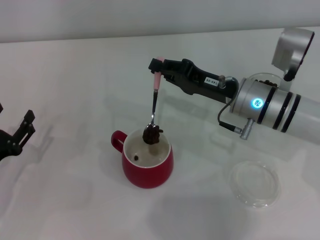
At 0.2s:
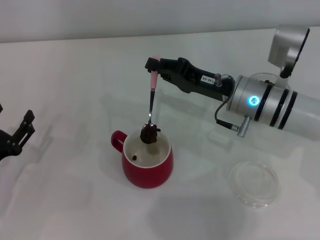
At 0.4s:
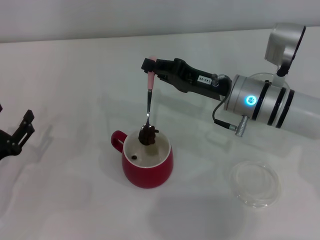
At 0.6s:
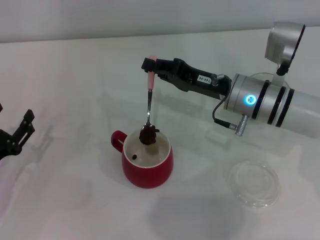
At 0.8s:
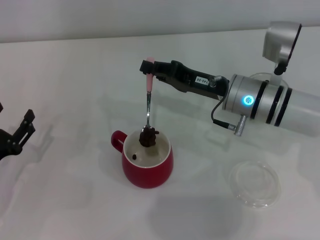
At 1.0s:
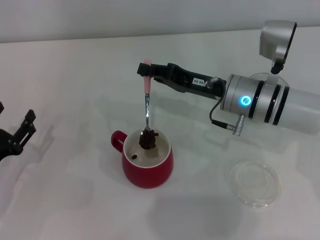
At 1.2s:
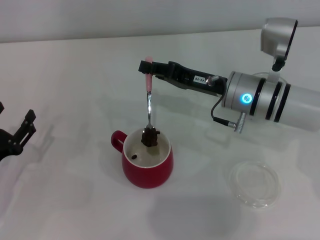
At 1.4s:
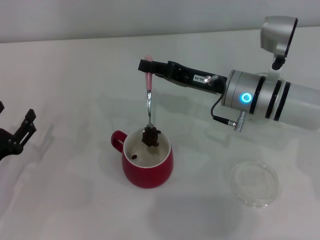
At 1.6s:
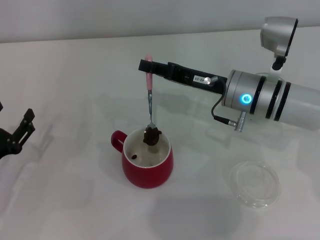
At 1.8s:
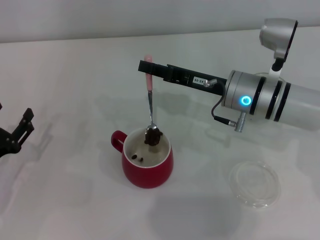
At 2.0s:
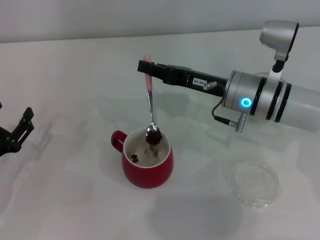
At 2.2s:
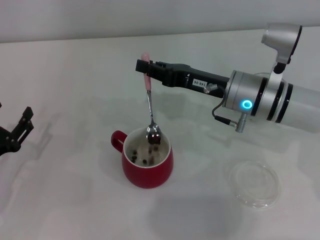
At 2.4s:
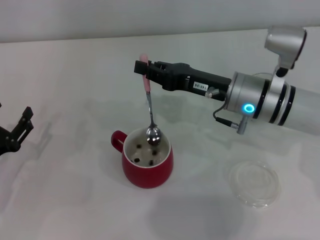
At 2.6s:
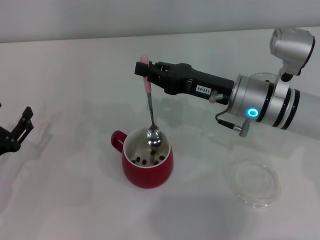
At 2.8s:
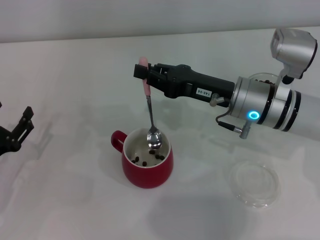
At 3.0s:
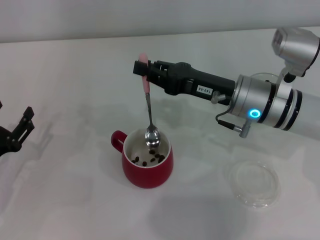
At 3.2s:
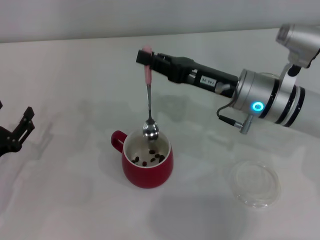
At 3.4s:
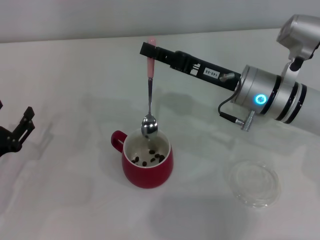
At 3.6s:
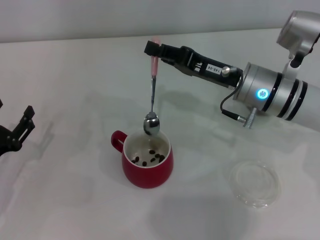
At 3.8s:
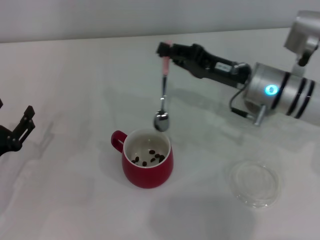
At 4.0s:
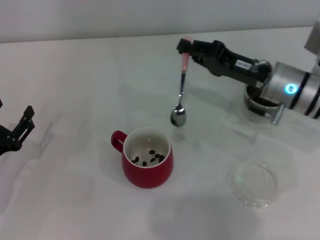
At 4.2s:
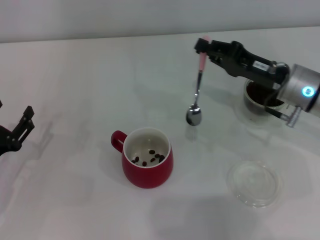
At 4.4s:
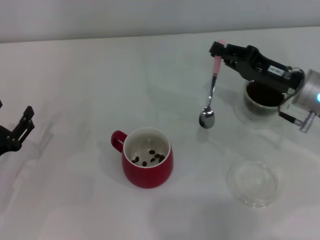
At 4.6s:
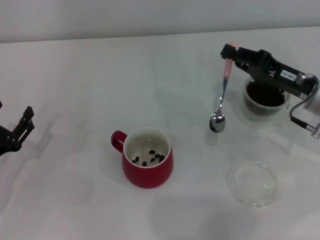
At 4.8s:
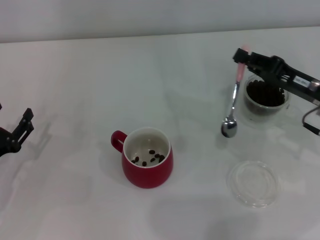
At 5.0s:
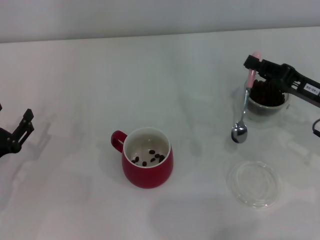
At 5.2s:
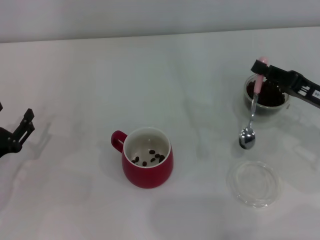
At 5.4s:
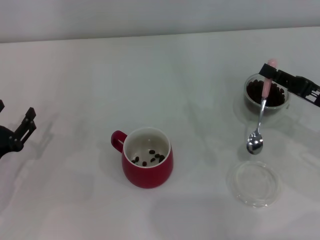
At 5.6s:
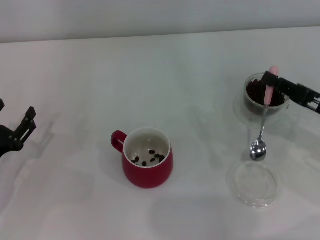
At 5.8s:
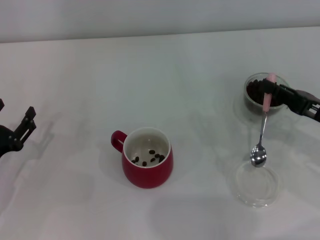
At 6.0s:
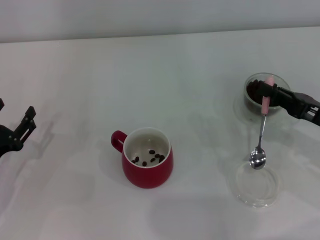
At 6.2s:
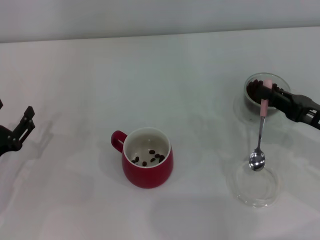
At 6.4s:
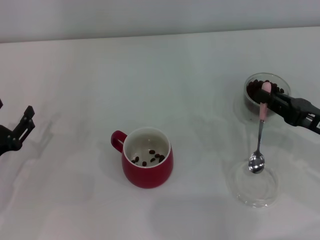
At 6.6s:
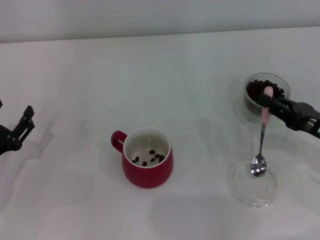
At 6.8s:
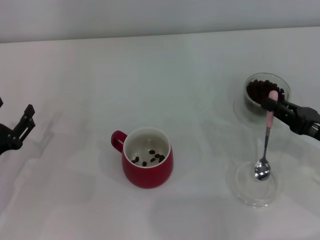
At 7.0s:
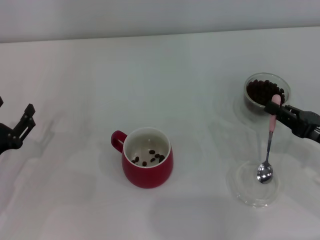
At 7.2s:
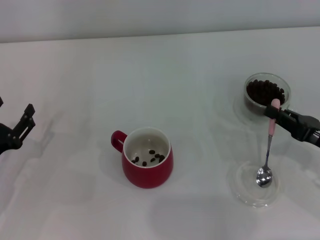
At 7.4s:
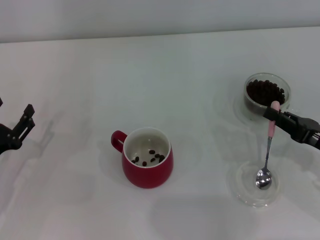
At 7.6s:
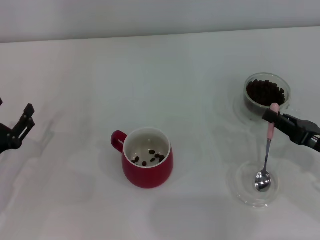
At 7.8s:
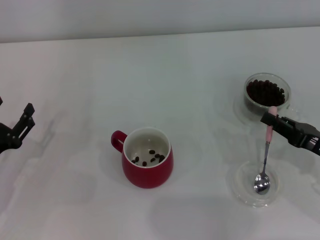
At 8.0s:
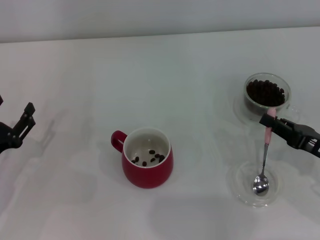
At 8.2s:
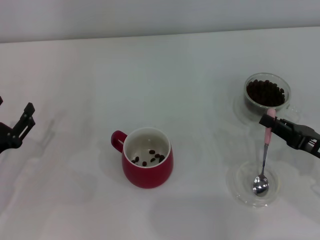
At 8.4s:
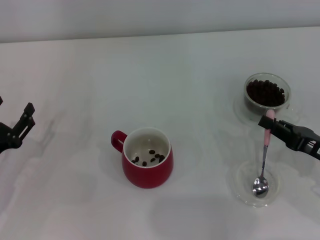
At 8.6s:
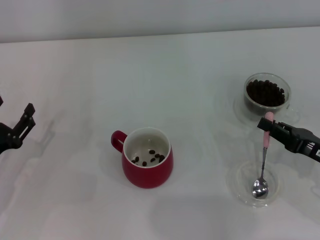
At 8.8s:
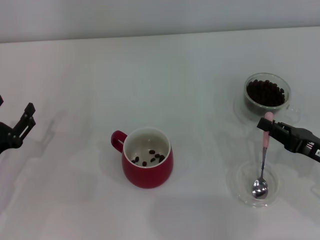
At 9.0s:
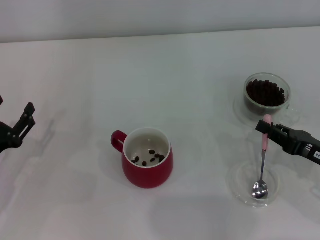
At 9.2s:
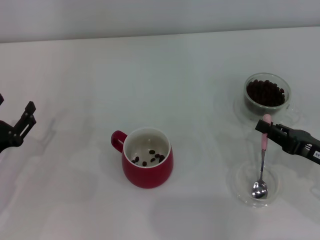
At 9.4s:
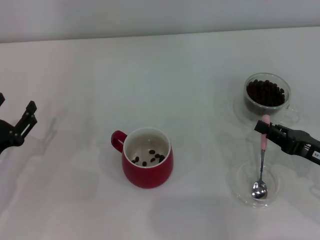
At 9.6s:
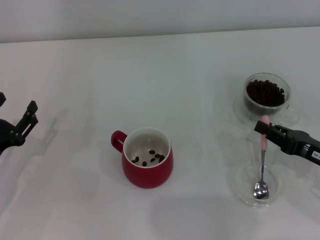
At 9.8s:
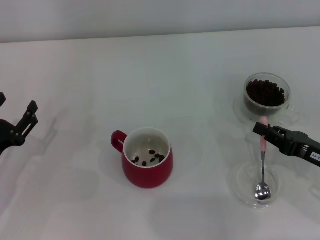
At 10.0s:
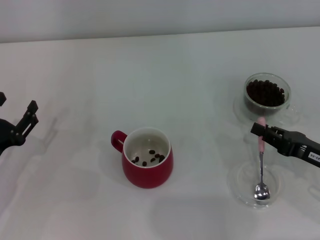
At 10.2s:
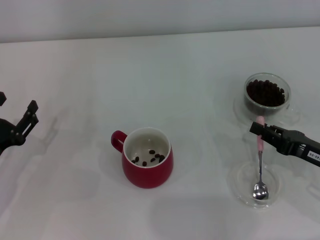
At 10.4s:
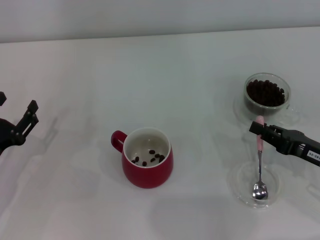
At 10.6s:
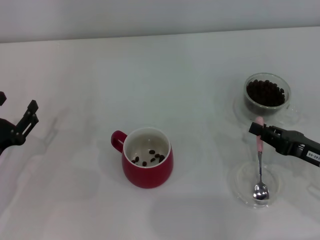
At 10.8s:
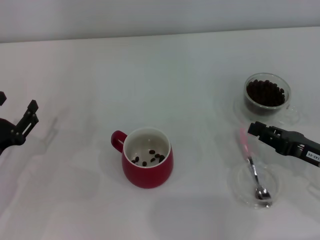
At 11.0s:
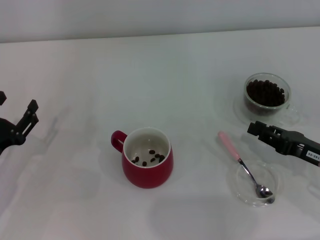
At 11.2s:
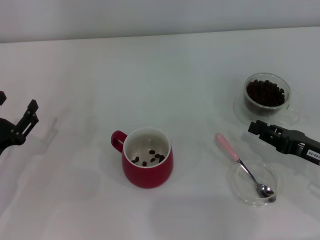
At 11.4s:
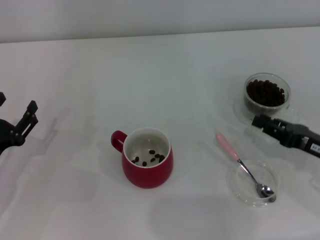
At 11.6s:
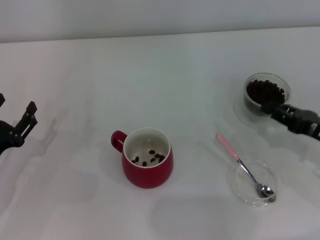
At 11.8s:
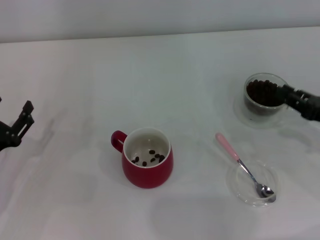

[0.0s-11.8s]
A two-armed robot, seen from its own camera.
Task of the whole recording: Use a pink spoon to take out the coffee beans from the glass and pour them into the red cup.
Step, 0.0s to 3.8s: Scoop a spoonful of beans into the cup with the right gripper.
Step, 4.0s to 11.2s: Place the spoon back in its original place with the right gripper.
0.0s to 1.4s: The grippers move only a little.
3.0s to 4.4s: The right gripper heads to the right, covering about 10 cm.
4.4s to 6.0s: The right gripper moves backward and to the right, approximately 10 cm.
6.0s to 7.4s: The grippers move only a little.
7.4s to 8.8s: Both grippers stay put.
8.8s to 10.4s: Both grippers stay about where they are.
10.4s to 11.8s: The right gripper ends up some 5 cm from where it was.

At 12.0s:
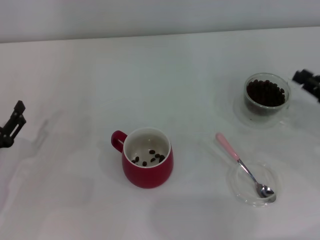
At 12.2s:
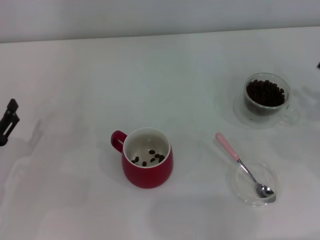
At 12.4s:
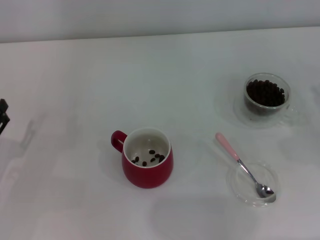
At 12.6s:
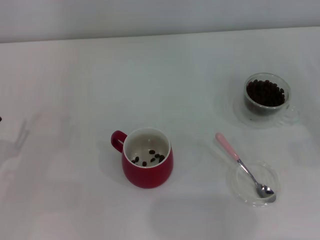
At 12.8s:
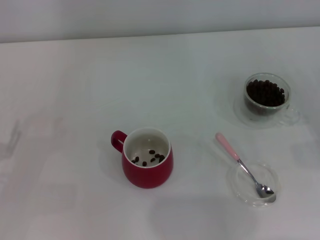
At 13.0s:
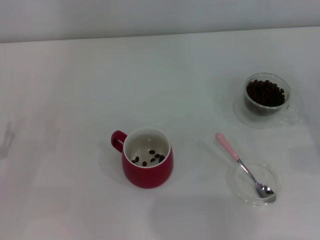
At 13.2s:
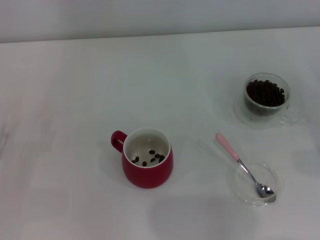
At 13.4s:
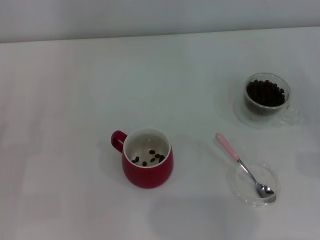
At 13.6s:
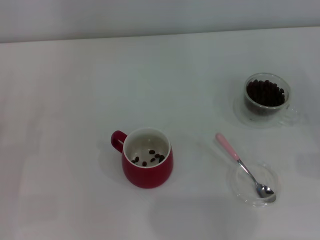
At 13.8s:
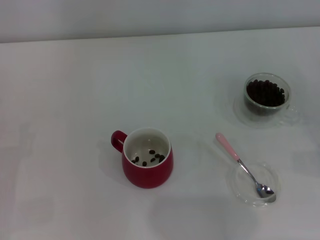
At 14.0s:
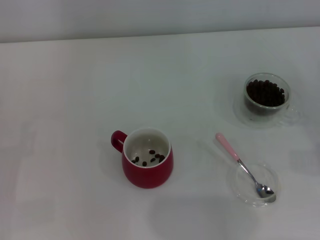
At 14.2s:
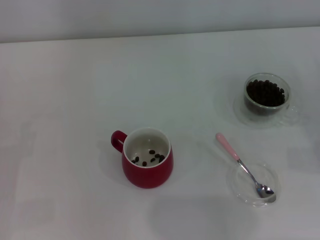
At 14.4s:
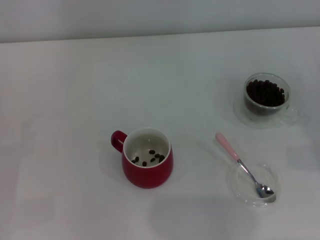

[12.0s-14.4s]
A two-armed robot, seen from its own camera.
Task of the whole recording: Use a pink spoon to take out the coffee beans from the glass and pour them into the red cup.
12.0s to 13.2s: The right gripper shifts by about 5 cm.

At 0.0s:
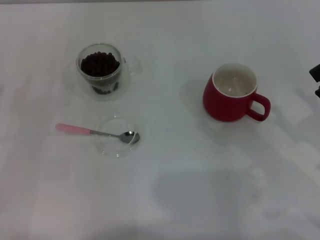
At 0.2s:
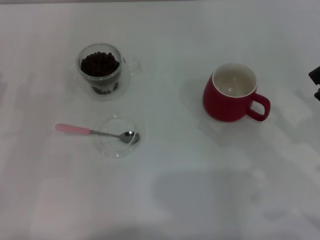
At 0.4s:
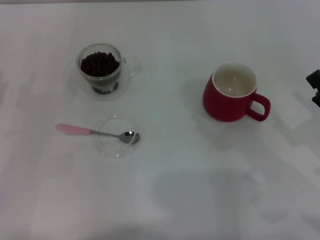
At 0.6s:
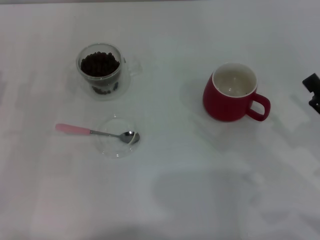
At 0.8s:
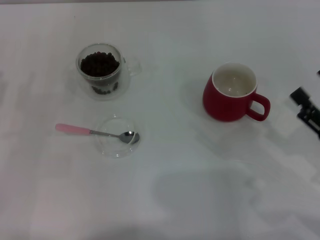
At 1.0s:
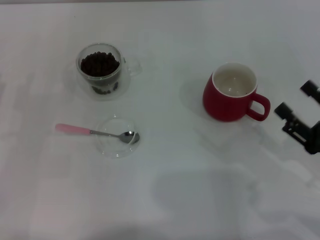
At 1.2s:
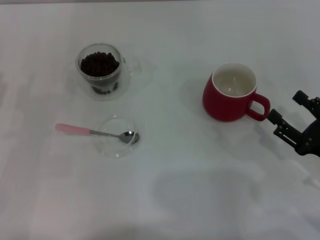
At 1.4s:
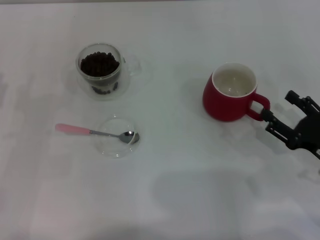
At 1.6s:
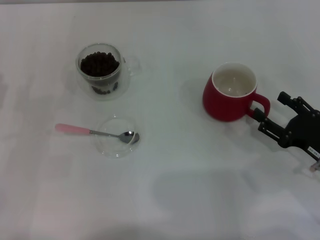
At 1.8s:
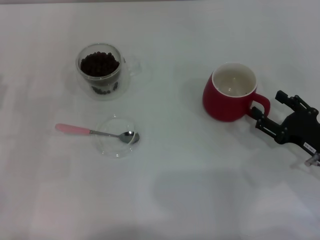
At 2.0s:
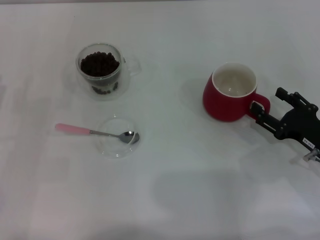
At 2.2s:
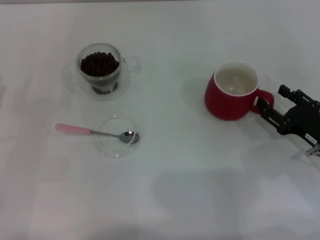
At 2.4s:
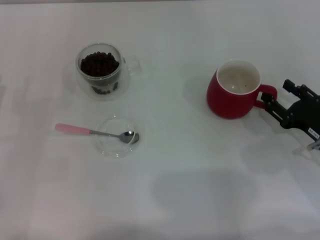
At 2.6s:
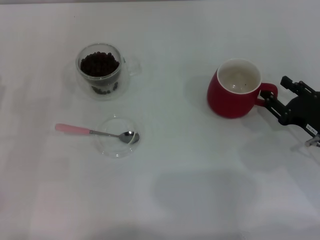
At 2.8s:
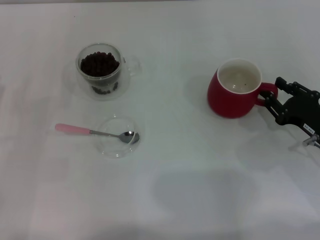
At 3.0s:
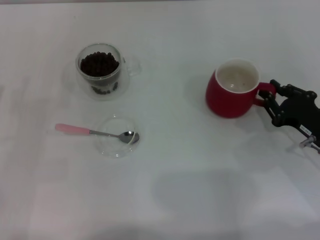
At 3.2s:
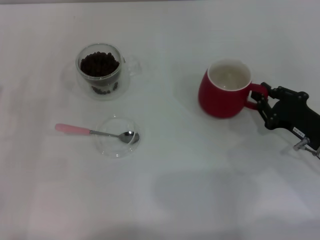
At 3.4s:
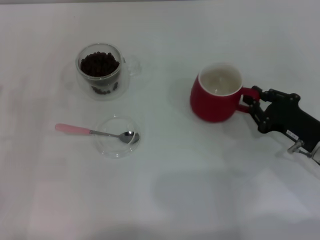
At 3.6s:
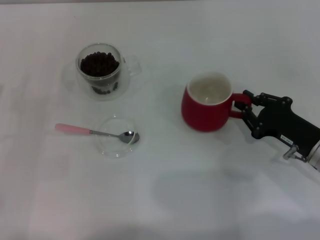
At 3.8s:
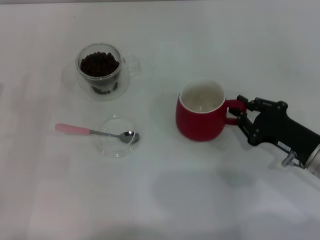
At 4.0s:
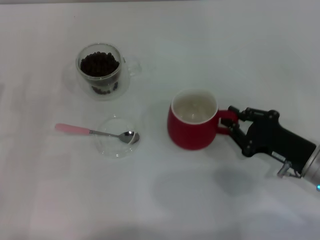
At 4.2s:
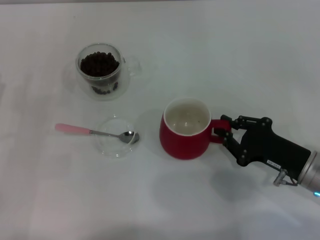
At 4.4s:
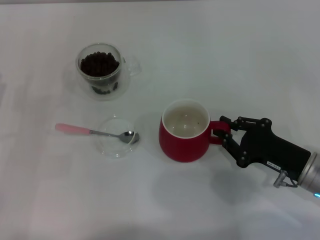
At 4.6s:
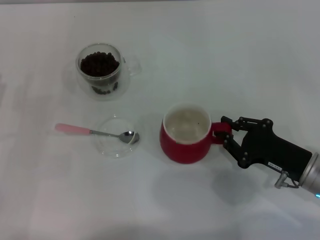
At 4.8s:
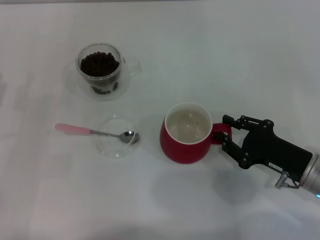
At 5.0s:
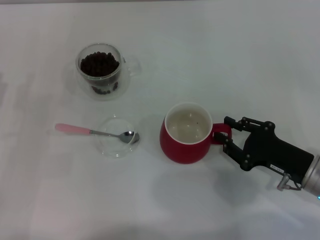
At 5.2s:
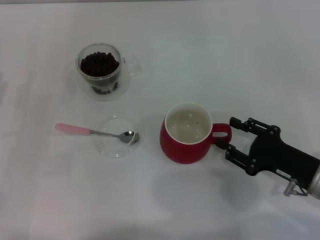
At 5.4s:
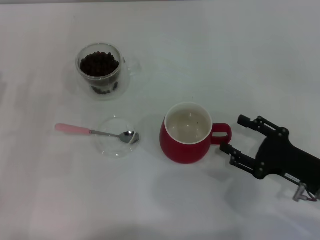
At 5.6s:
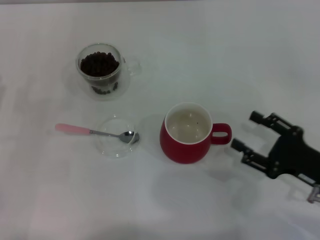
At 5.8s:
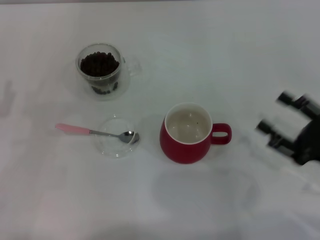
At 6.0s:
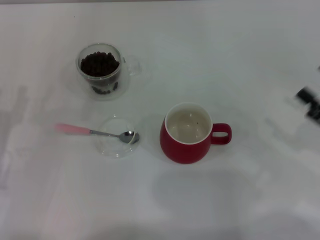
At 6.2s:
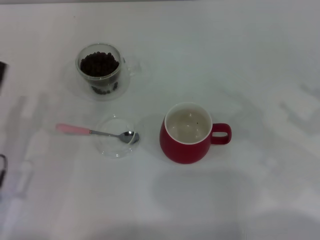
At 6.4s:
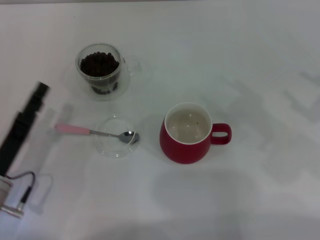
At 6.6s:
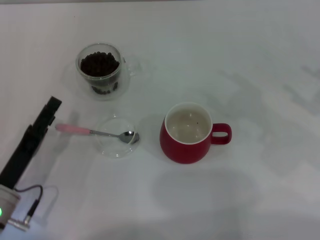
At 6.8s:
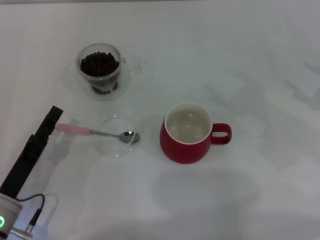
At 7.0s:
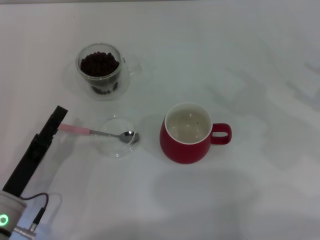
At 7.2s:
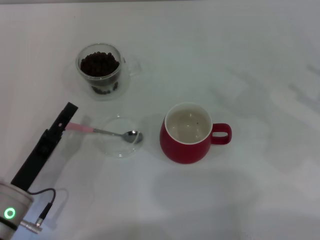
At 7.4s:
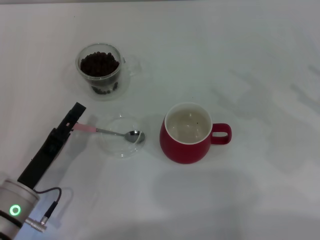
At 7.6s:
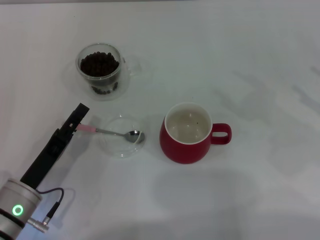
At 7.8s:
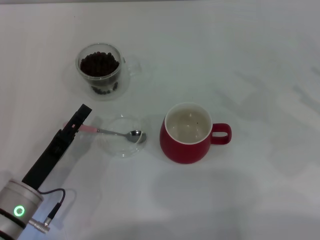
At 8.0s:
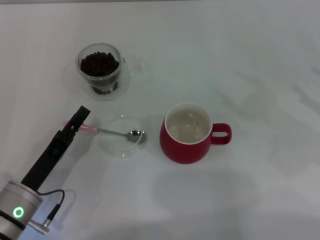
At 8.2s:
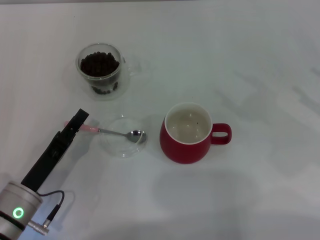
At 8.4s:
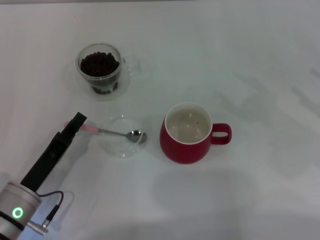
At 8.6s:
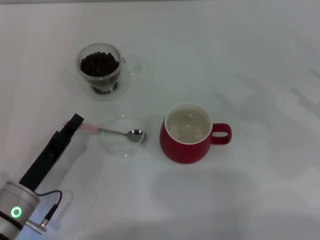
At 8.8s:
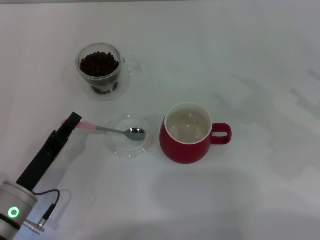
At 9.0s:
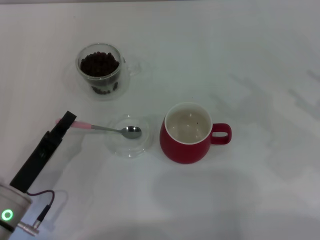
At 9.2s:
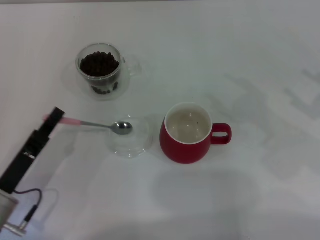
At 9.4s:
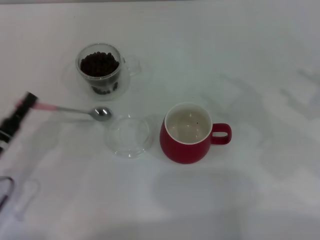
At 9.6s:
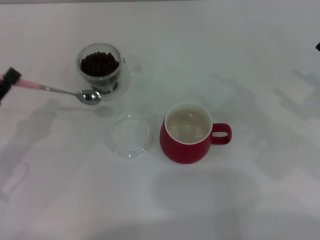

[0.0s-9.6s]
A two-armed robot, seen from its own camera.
Task of the whole recording: Use a pink spoon to take out the coffee beans from the glass and pour them into the red cup.
Step, 0.0s to 5.4s: Move the cup to the center of view with the left gripper.
Step, 5.6s to 9.2s: Pick up the spoon with the right gripper.
0.0s to 1.6s: The right gripper travels downward by about 5 cm.
1.6s to 3.2s: The right gripper closes.
3.2s to 4.8s: The grippers stay close to where they were, moving slightly.
4.8s to 6.4s: The right gripper is displaced to the right and upward by roughly 15 cm, and opens up, while the left gripper shifts about 10 cm to the right.
6.4s to 8.0s: The grippers move only a little.
8.0s to 9.6s: The left gripper heads to the left and upward, covering about 10 cm, and closes its fingers.
